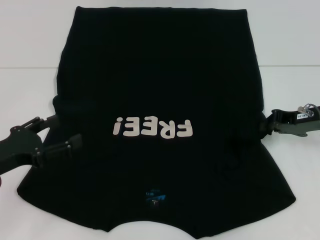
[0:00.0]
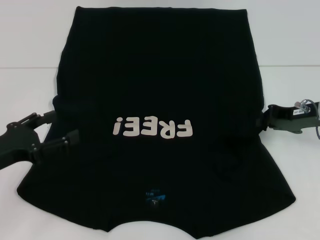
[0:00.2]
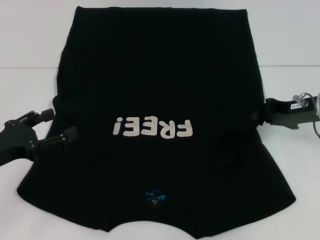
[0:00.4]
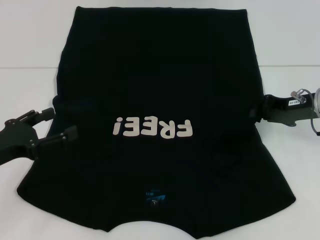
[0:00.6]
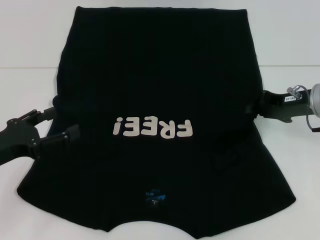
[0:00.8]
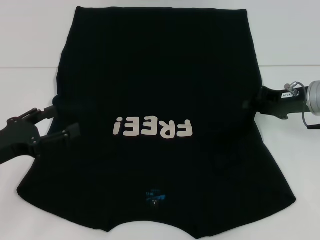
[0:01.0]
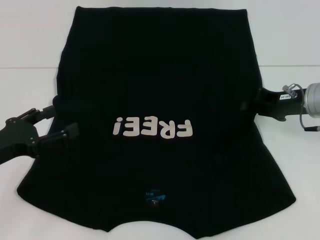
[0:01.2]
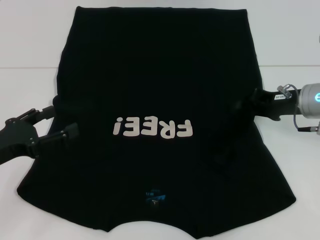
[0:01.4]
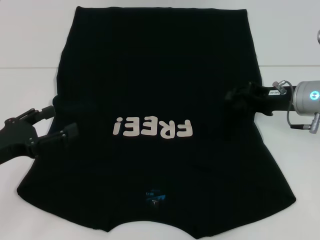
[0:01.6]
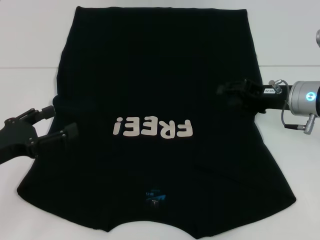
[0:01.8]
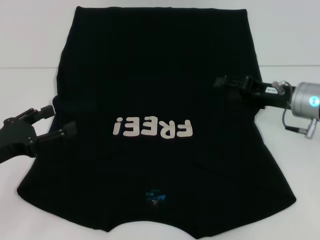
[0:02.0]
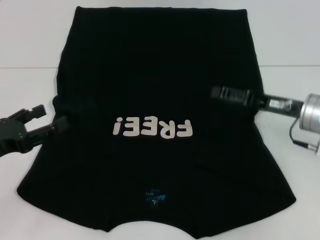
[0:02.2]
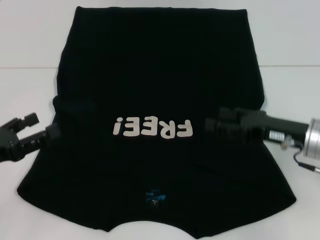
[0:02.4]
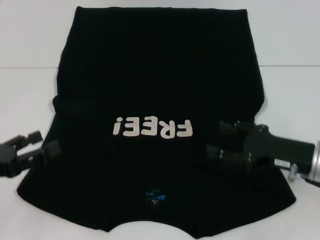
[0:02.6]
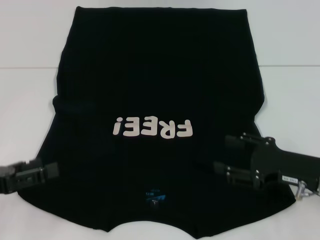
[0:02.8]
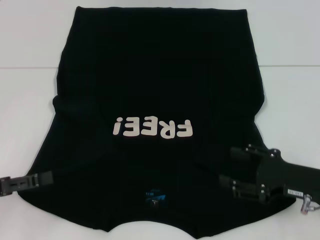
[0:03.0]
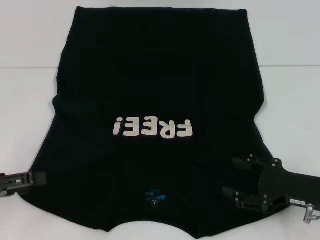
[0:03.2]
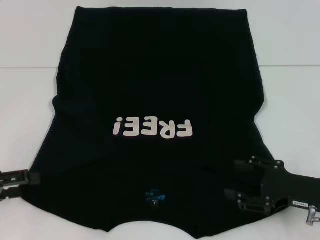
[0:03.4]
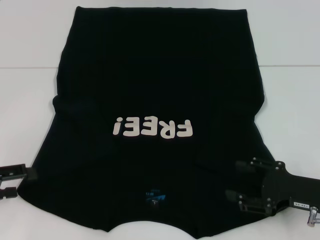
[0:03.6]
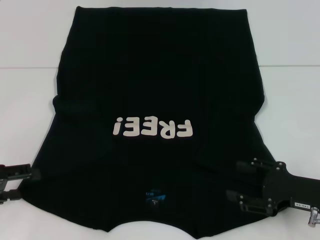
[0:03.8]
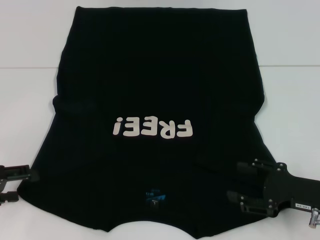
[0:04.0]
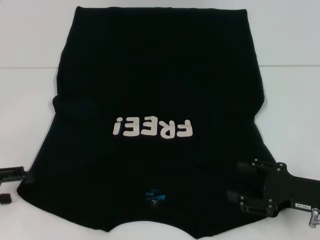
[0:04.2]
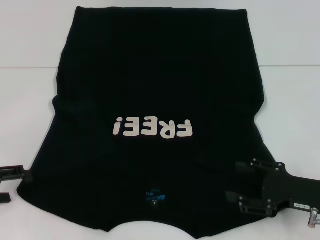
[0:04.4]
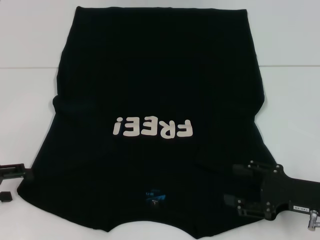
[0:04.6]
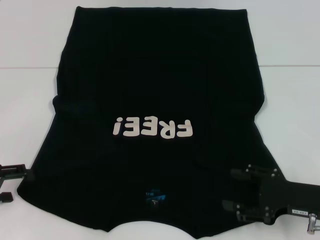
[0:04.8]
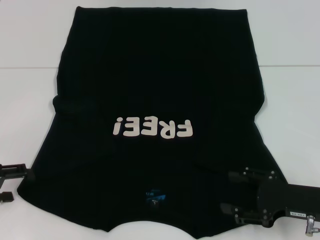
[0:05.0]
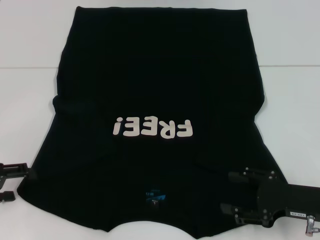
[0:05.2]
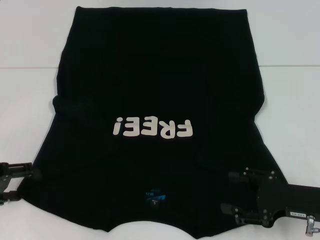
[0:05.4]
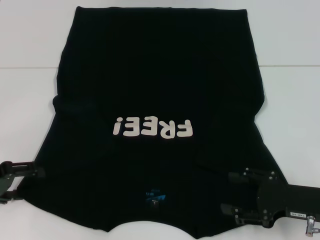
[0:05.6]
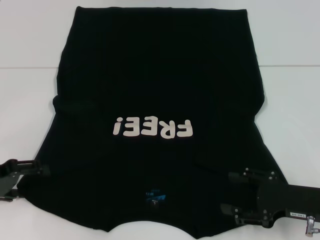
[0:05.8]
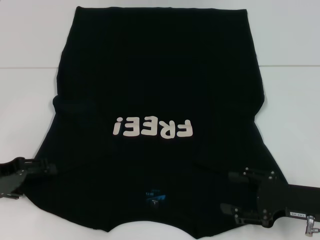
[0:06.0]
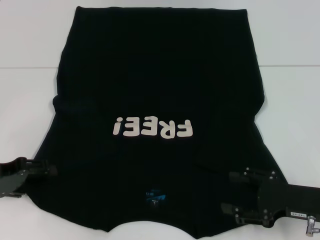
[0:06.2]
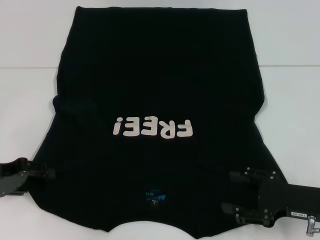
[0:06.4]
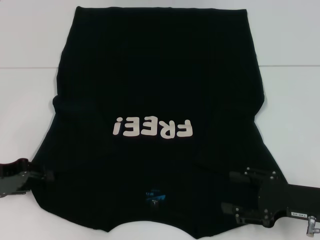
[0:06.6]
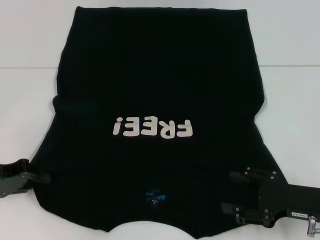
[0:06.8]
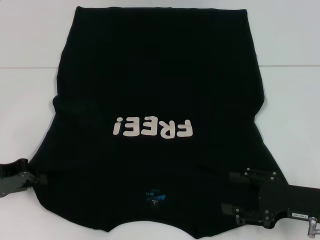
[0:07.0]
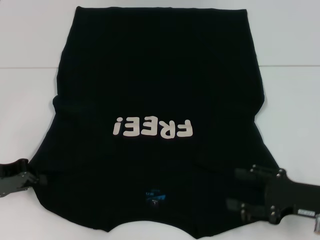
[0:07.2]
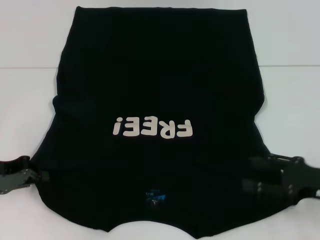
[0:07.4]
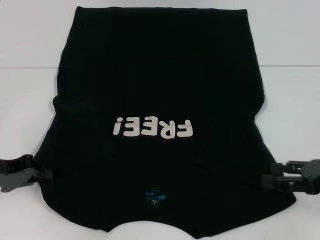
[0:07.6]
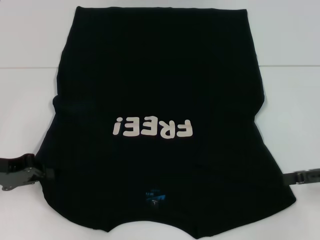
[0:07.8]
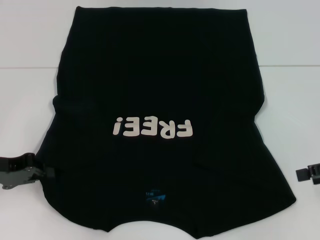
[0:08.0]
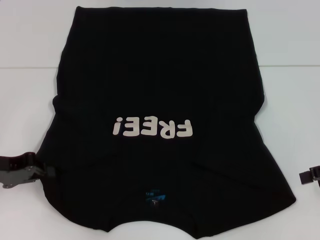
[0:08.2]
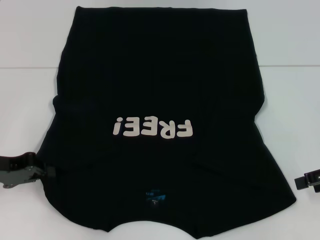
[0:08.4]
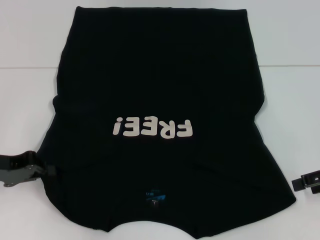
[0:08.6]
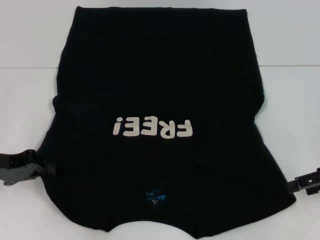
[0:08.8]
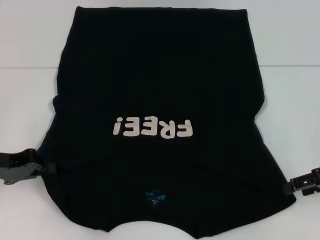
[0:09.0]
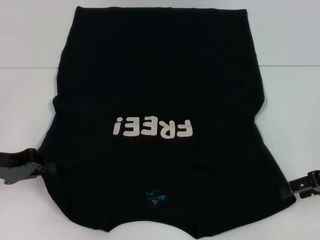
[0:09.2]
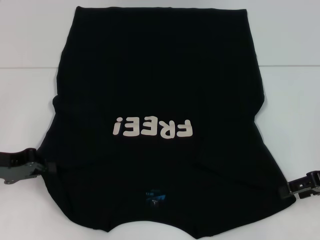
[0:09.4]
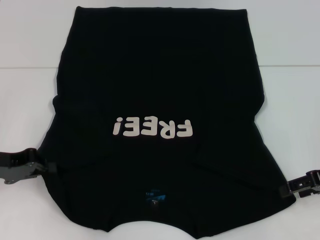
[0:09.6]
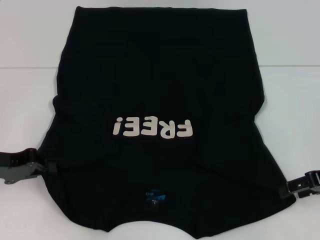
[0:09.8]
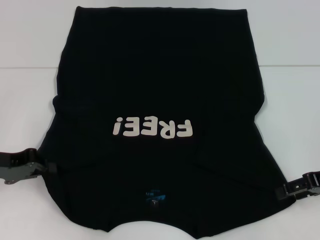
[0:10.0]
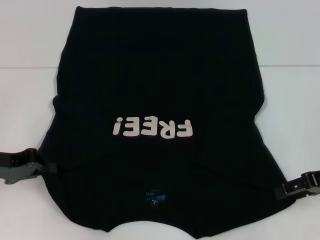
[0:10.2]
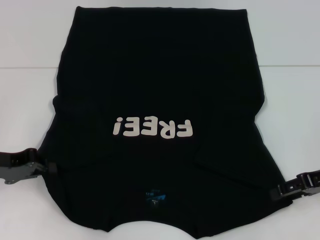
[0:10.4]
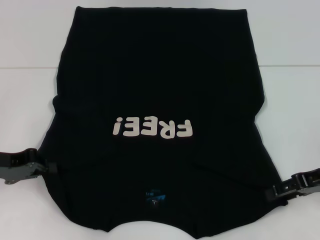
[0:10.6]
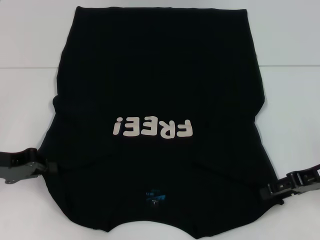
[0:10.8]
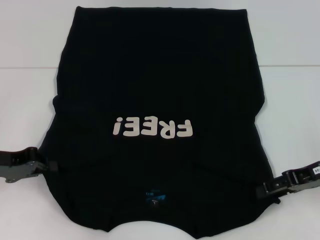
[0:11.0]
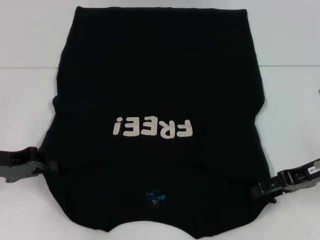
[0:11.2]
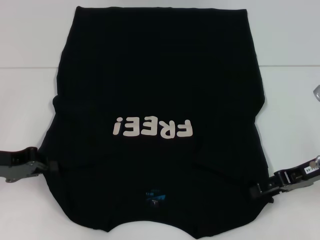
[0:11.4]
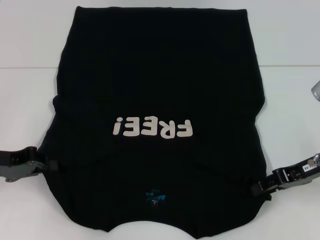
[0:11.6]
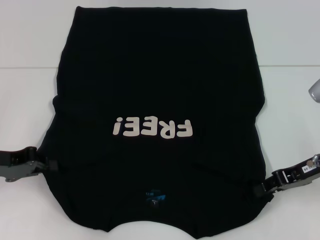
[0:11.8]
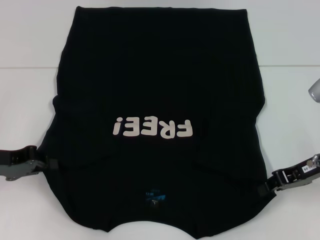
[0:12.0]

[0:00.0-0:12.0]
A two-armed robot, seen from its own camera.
Step, 0:00.0 to 0:07.4: Grab the bottom left corner with your left hand.
0:00.0 to 0:01.6: The grippers move only a little.
0:01.6 to 0:03.0: The left gripper ends up about 5 cm from where it was, while the right gripper travels backward and downward by roughly 15 cm, and opens its fingers.
0:04.4 to 0:06.0: The grippers stay close to where they were, moving slightly.
0:06.0 to 0:07.6: The left gripper closes up; the right gripper shifts about 10 cm upward and to the right.
0:09.0 to 0:10.4: The grippers stay close to where they were, moving slightly.
0:10.4 to 0:12.0: The right gripper closes.

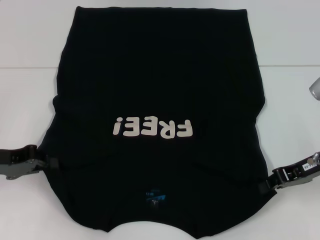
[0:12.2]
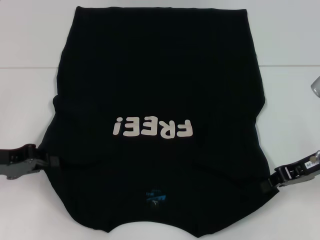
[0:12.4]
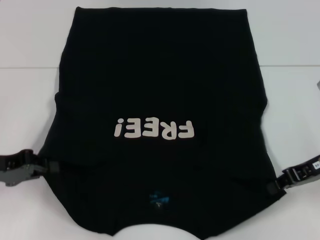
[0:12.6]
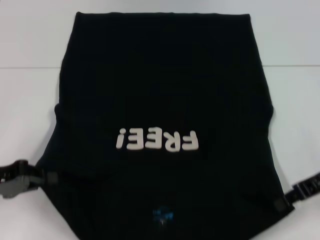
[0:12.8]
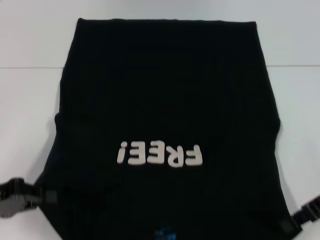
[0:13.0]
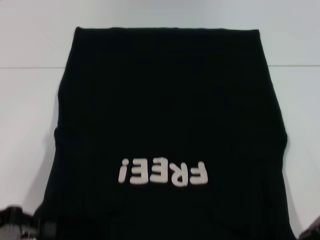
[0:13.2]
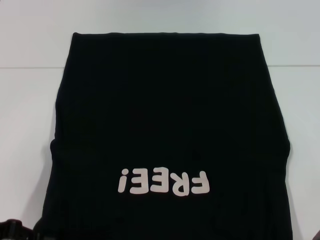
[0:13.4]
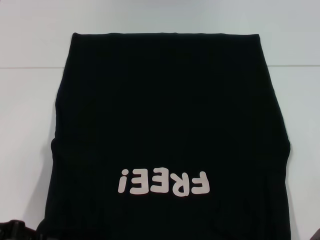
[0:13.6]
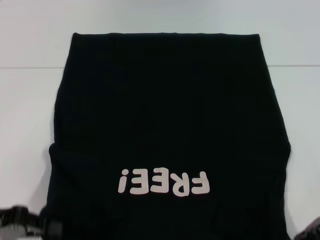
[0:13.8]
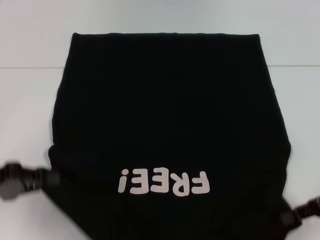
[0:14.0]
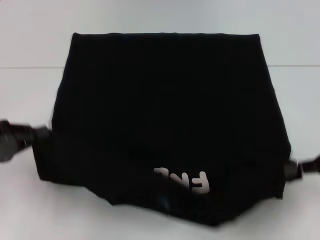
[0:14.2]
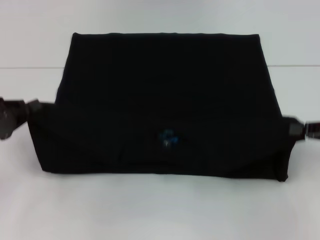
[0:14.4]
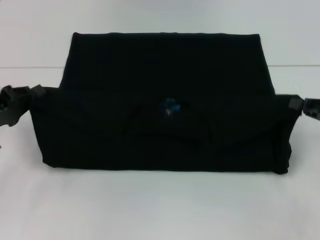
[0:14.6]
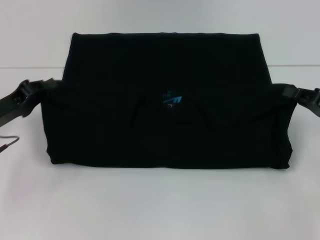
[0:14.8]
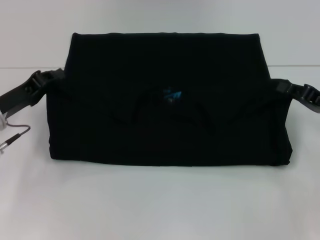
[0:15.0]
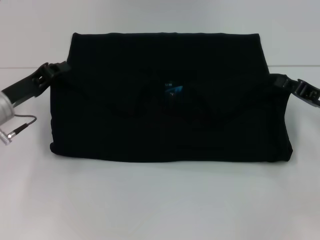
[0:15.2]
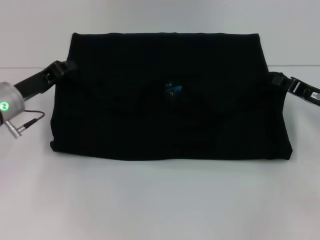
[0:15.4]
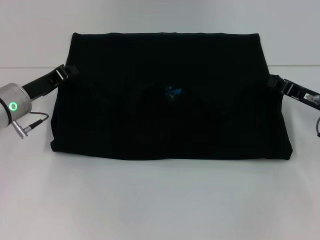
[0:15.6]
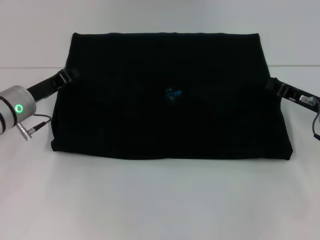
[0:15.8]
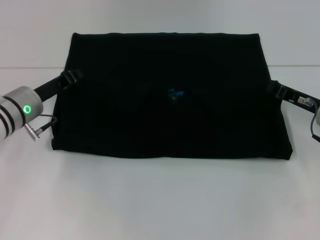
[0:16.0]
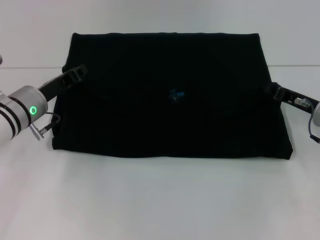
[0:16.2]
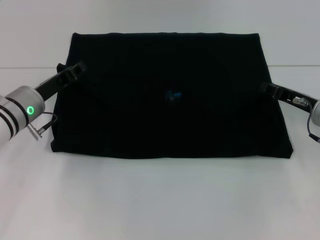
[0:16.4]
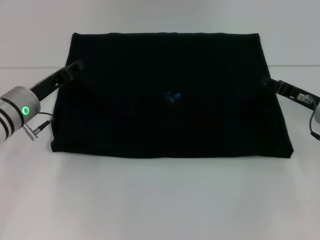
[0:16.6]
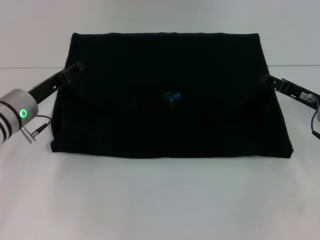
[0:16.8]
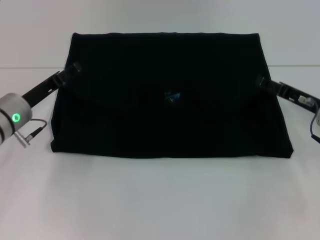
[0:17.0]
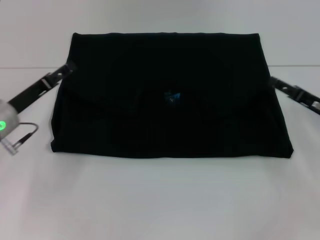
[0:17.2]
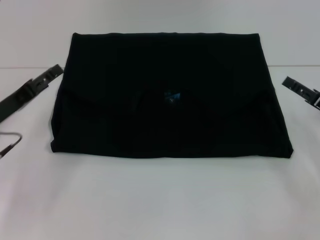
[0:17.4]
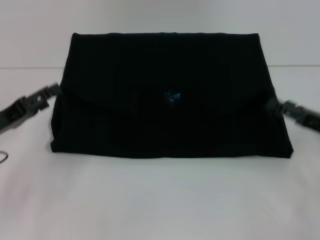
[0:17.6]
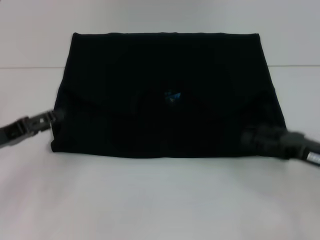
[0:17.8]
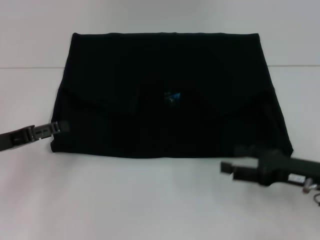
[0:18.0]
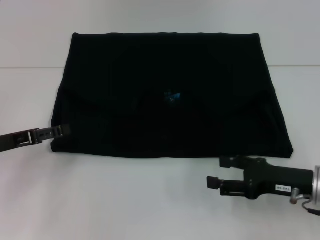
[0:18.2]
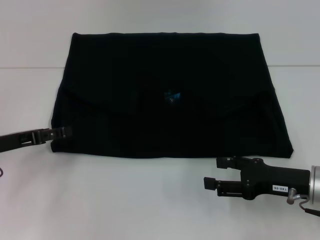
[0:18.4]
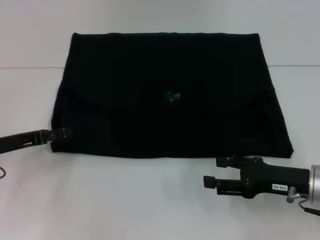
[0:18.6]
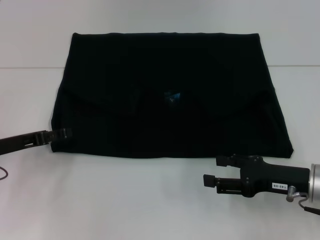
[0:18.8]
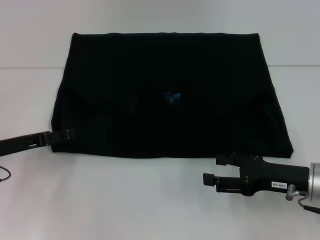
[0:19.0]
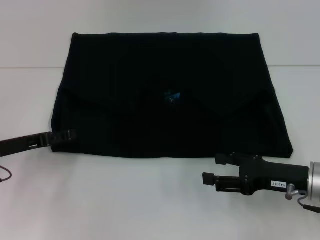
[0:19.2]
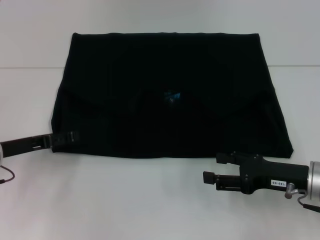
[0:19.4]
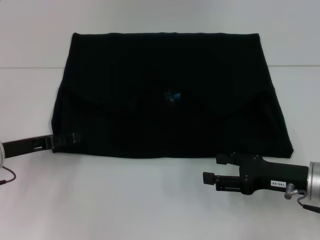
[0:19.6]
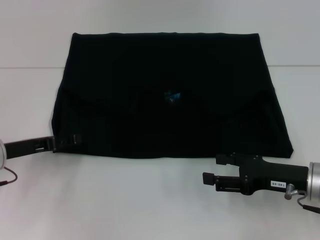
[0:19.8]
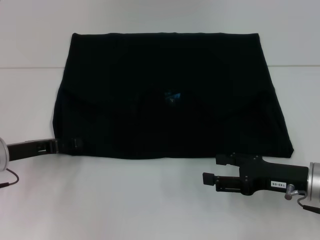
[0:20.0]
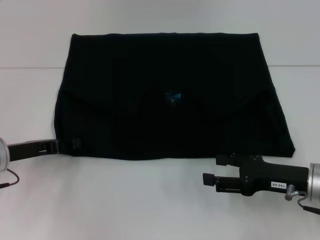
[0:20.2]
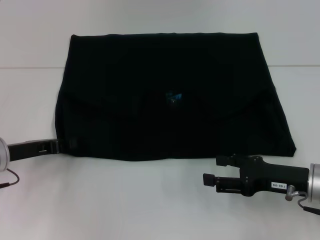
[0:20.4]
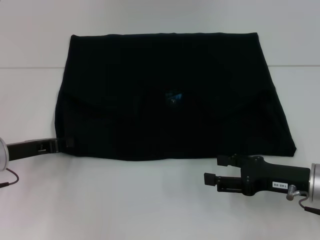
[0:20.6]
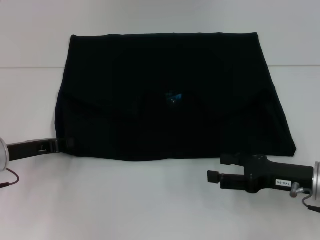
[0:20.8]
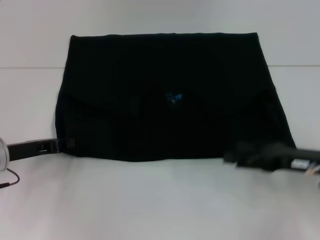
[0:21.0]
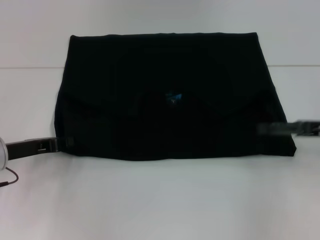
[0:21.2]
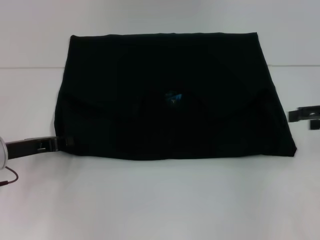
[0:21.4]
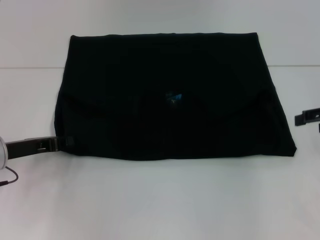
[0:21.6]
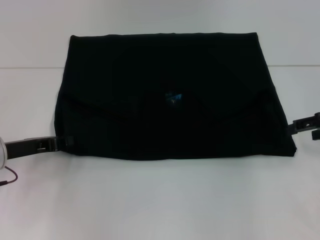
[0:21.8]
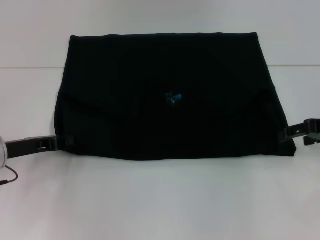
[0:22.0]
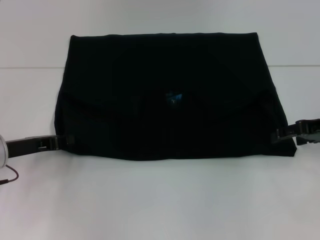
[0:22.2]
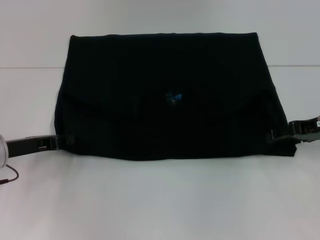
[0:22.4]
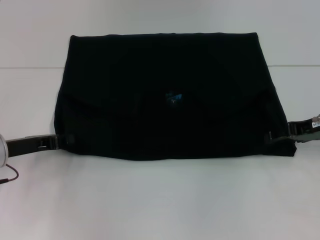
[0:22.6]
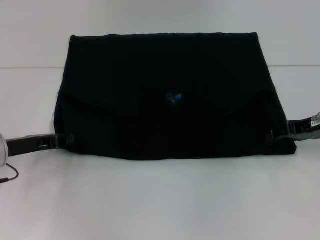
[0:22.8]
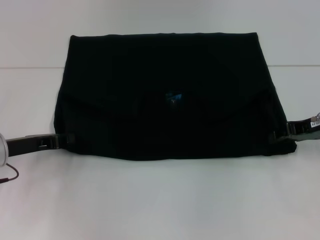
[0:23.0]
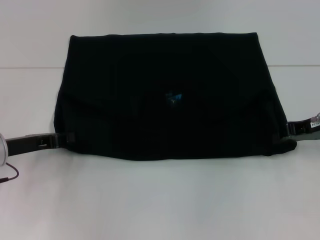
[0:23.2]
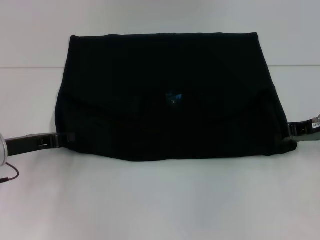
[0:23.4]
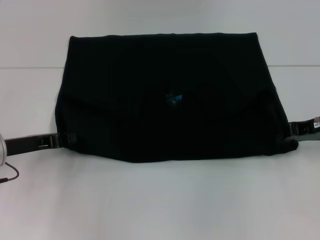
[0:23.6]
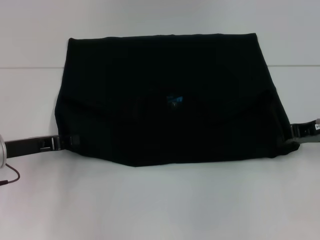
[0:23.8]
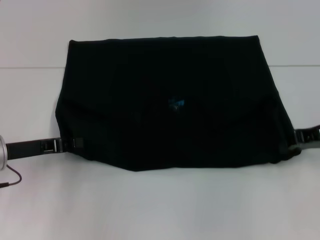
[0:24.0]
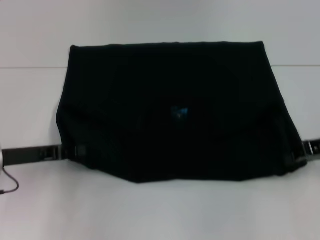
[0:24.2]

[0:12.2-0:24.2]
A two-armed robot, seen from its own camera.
Step, 0:12.6 to 0:16.8: Fold the clothes with your left hand.
Step, 0:12.6 to 0:16.8: Fold the clothes with your right hand.
0:12.2 to 0:13.8: Both grippers travel together backward, some 5 cm.
0:13.8 to 0:15.2: The left gripper heads forward, covering roughly 15 cm, while the right gripper shifts some 5 cm forward.
0:15.2 to 0:16.6: The grippers make only small movements.
0:16.6 to 0:18.2: The right gripper heads backward, covering roughly 10 cm, and opens its fingers. Meanwhile the left gripper heads backward and to the left, covering some 10 cm, and opens its fingers.
0:18.2 to 0:19.8: There are only small adjustments of the grippers.
0:19.8 to 0:21.2: The left gripper closes up. The right gripper moves upward and to the right, some 10 cm.
0:21.2 to 0:22.6: The right gripper is displaced forward by approximately 5 cm.
0:22.6 to 0:24.2: The right gripper closes its fingers.
